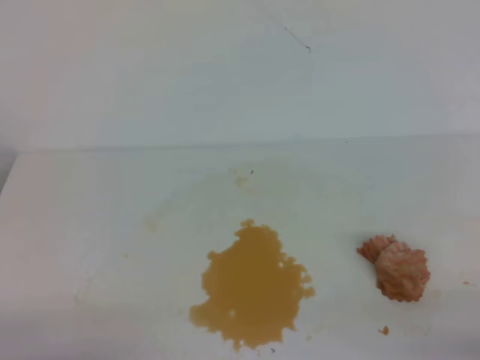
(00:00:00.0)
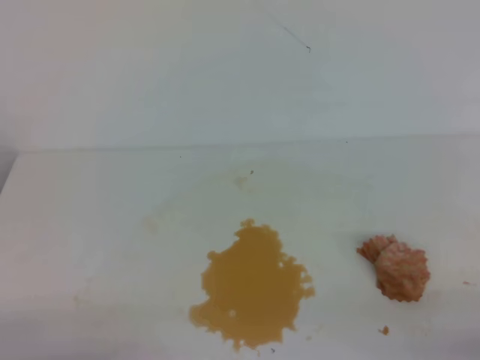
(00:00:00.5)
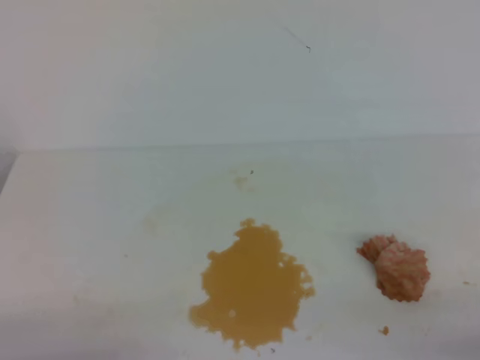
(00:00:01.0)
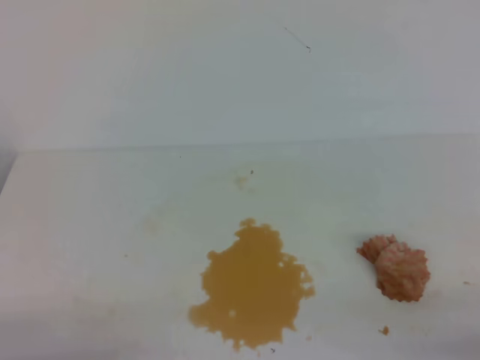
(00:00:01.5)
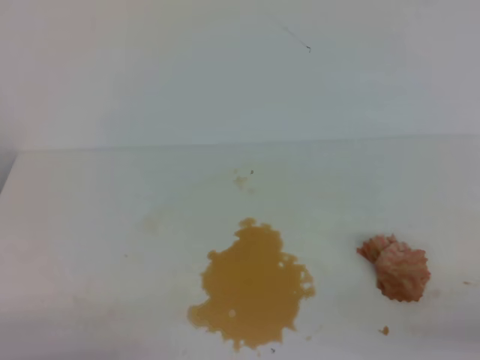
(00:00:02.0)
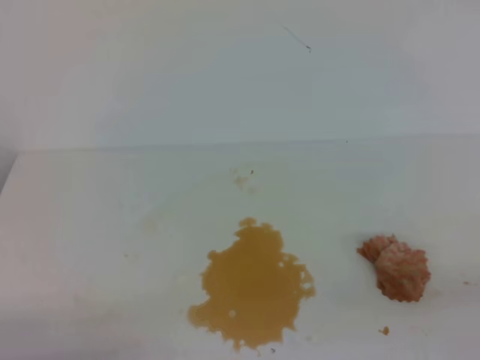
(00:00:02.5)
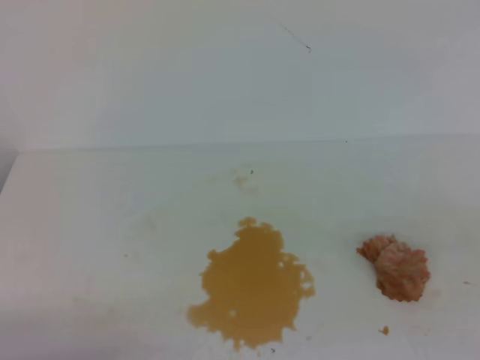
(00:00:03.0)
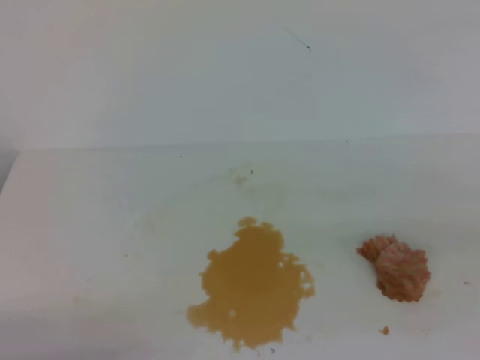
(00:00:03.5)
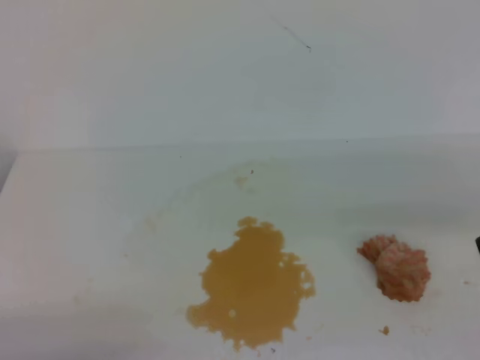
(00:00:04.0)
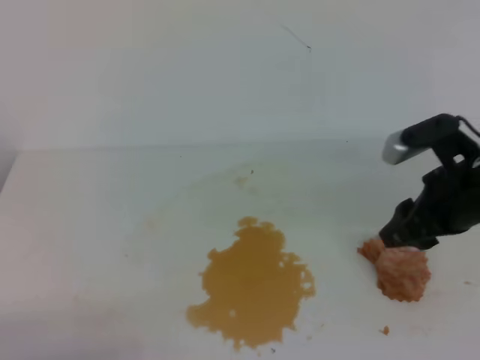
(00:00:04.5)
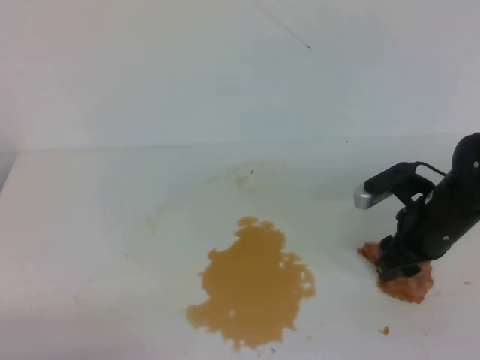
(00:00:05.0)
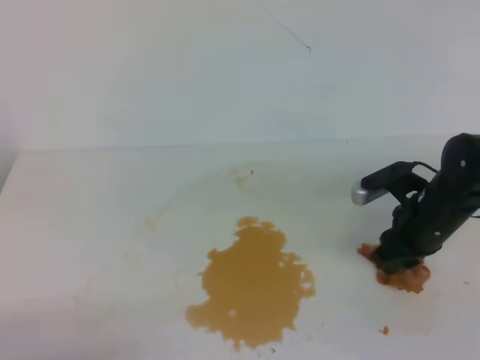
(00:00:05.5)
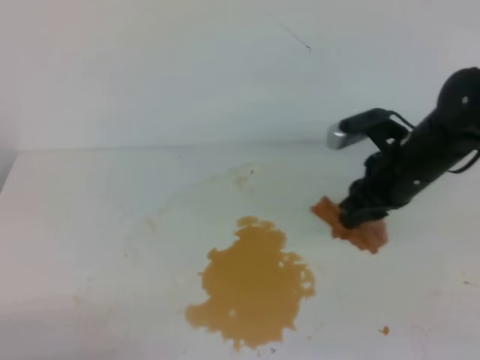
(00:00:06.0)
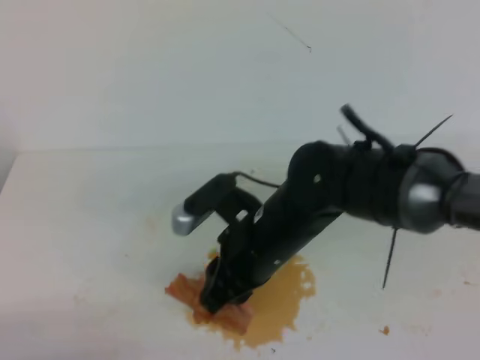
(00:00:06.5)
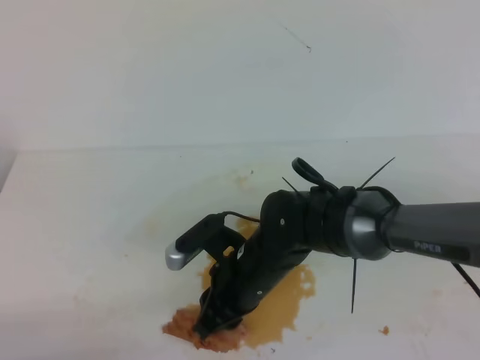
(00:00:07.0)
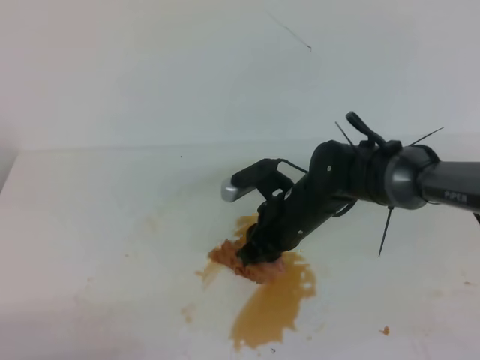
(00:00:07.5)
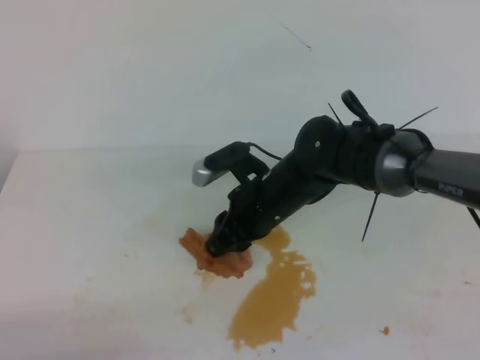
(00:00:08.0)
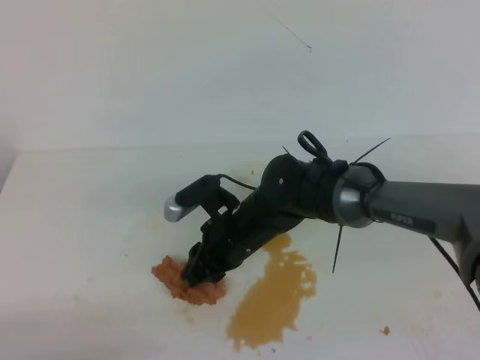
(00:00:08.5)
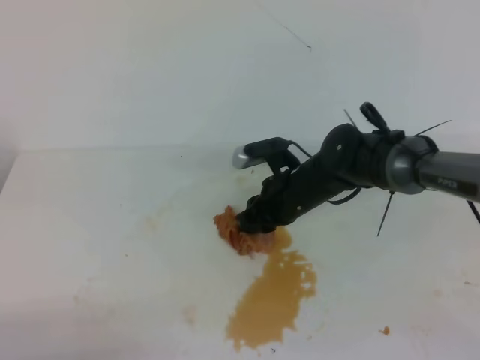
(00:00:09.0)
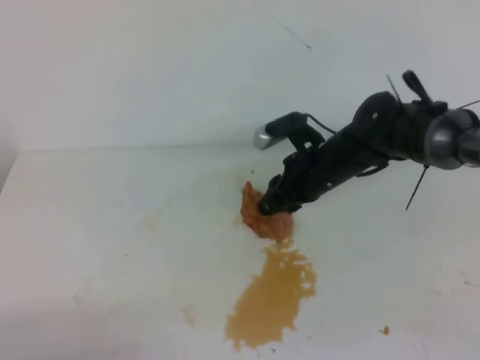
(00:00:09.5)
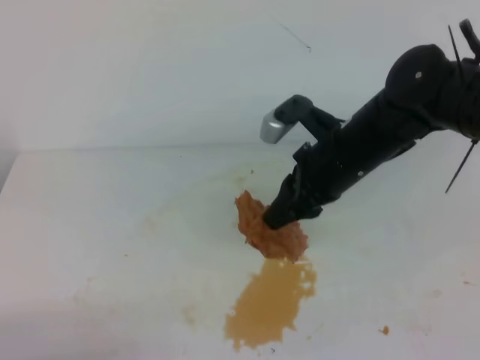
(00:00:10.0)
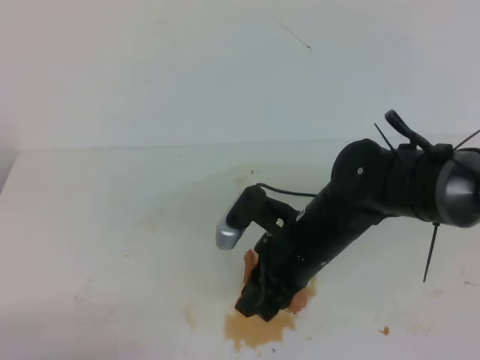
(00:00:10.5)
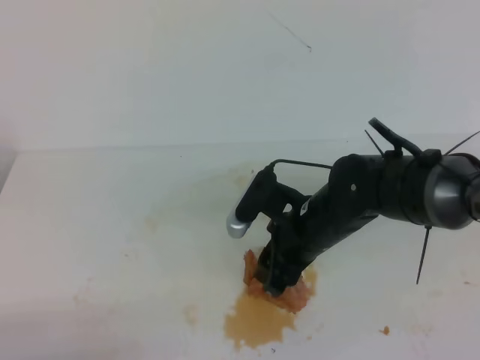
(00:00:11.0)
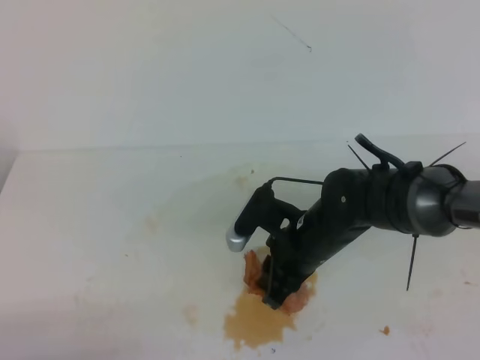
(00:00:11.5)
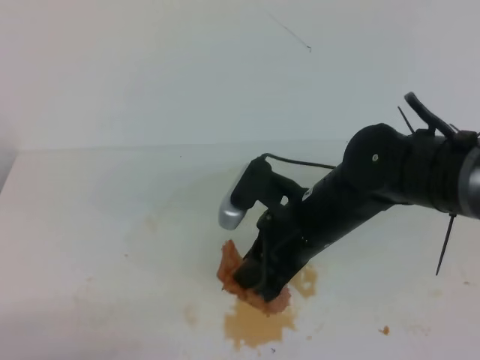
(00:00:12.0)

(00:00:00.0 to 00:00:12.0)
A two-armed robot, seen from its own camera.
00:00:04.0 - 00:00:06.0: The right gripper shifts about 20 cm forward, to the left and downward, and opens, then closes again.
00:00:06.0 - 00:00:08.0: The right gripper travels to the left by about 15 cm.
00:00:08.0 - 00:00:10.0: The right gripper shifts approximately 10 cm to the right and upward.
00:00:10.0 - 00:00:12.0: The right gripper moves backward, roughly 5 cm, and opens, then closes again.

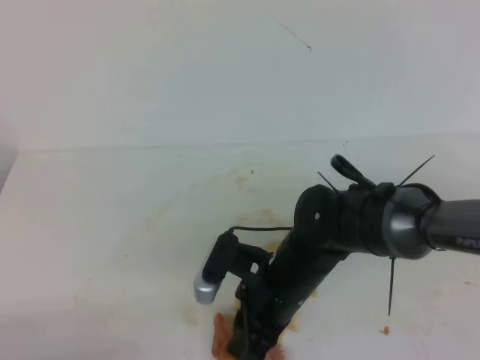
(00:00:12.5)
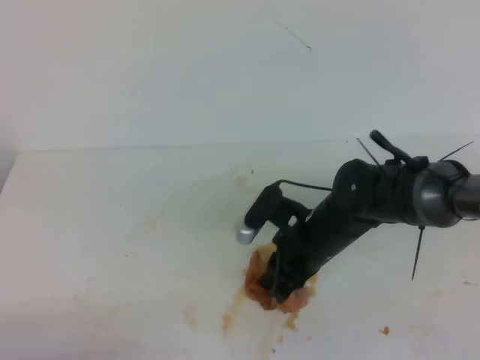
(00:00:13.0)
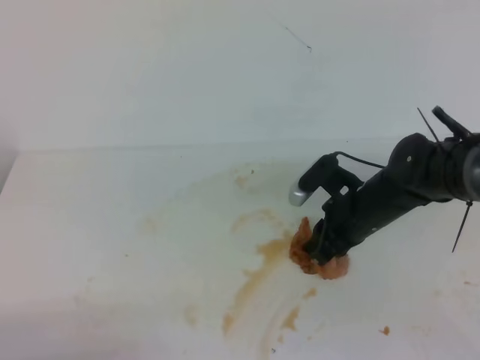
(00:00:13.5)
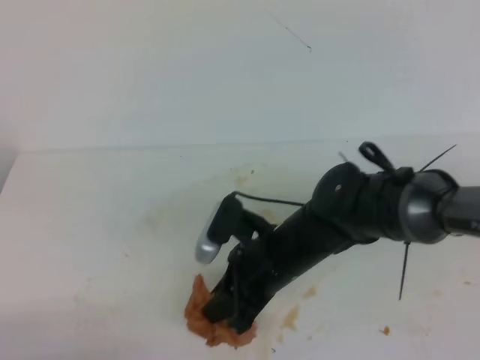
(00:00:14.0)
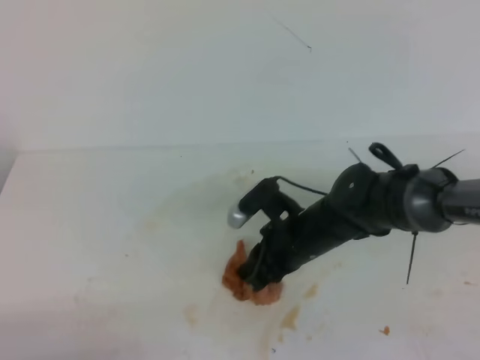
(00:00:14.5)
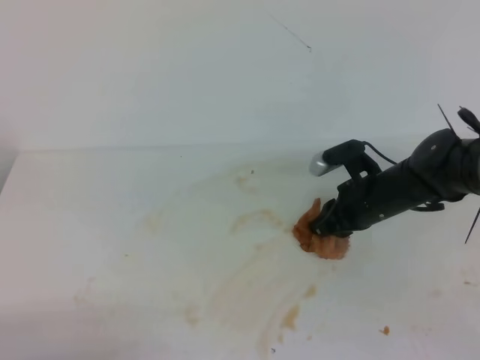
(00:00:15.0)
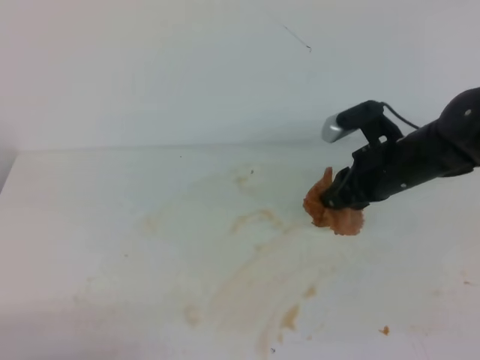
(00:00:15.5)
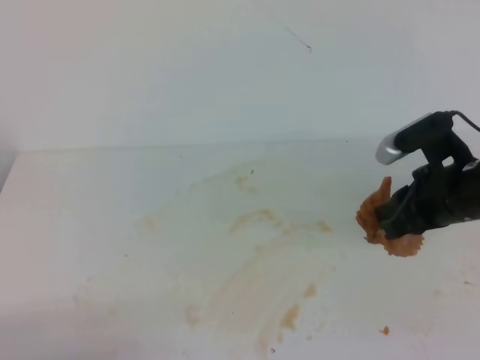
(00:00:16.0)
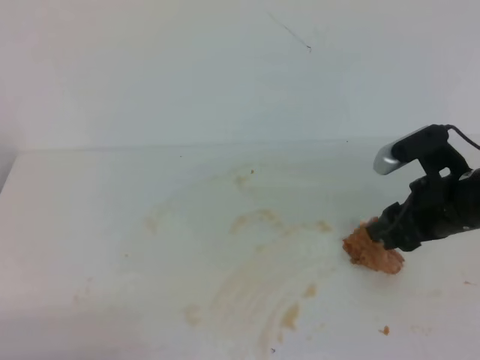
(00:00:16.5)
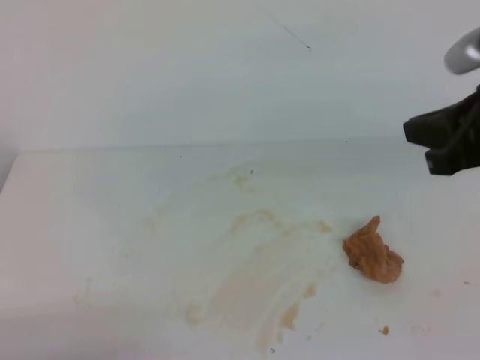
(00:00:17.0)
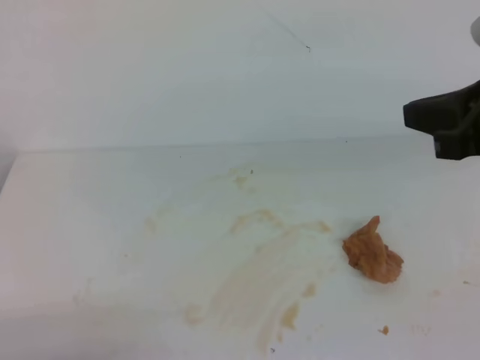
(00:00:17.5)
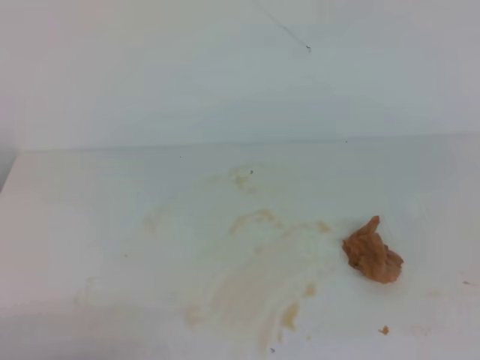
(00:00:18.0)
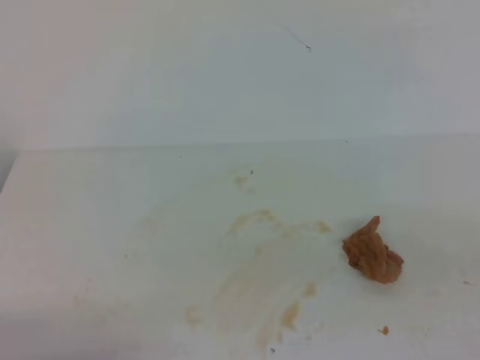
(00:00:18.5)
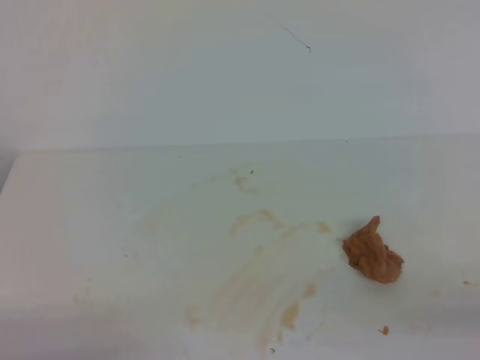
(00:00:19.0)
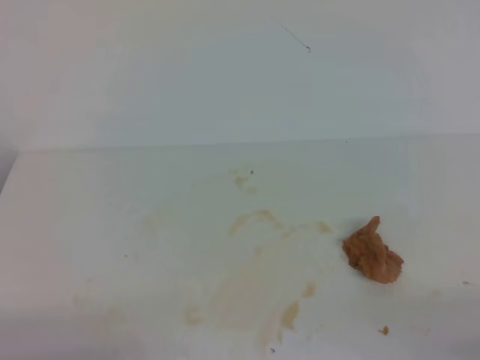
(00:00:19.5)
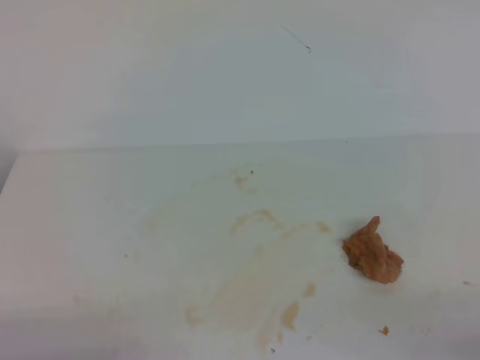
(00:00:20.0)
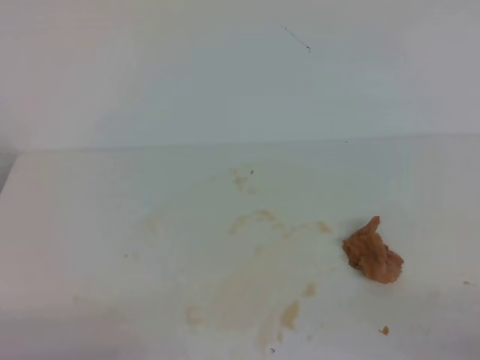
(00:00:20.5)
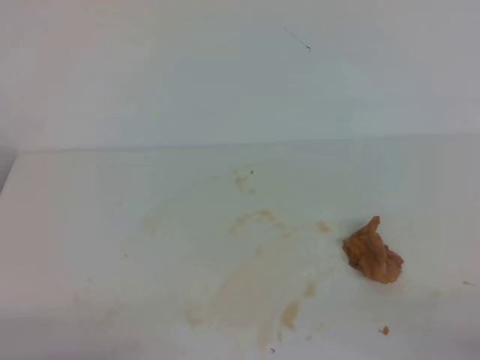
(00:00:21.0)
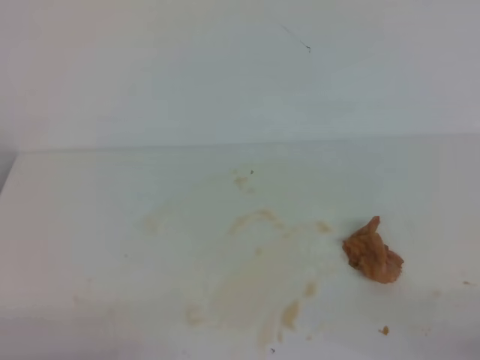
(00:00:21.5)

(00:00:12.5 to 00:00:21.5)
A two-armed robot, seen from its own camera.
00:00:12.5 - 00:00:14.5: The right gripper travels forward by about 5 cm.
00:00:14.5 - 00:00:17.0: The right gripper is displaced upward and to the right by approximately 25 cm, and opens and closes again.
00:00:17.0 - 00:00:19.5: The right gripper heads backward, downward and to the right, covering approximately 30 cm.
